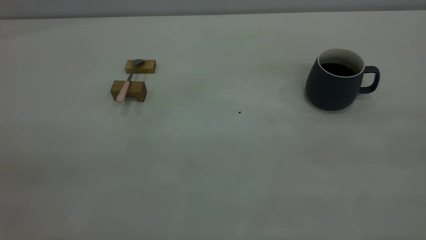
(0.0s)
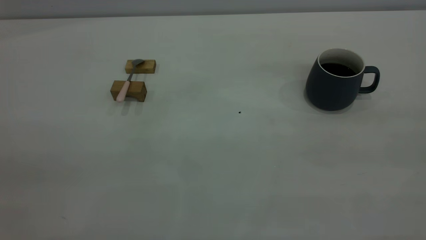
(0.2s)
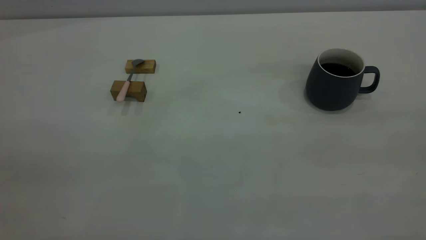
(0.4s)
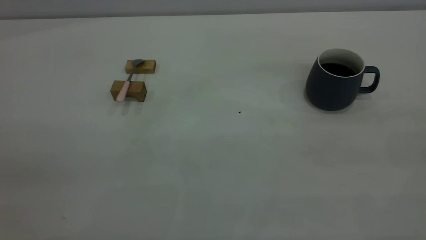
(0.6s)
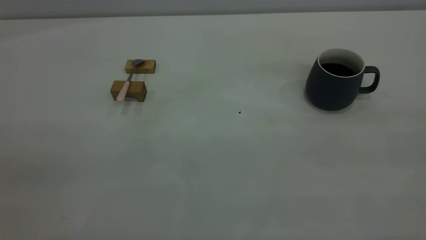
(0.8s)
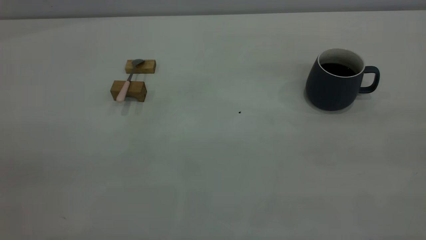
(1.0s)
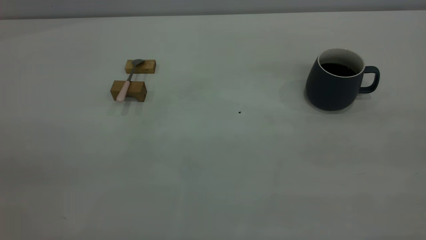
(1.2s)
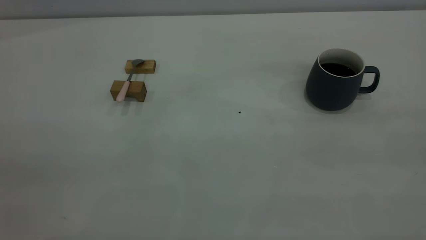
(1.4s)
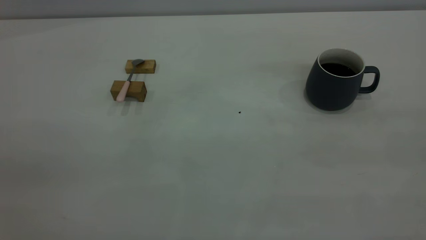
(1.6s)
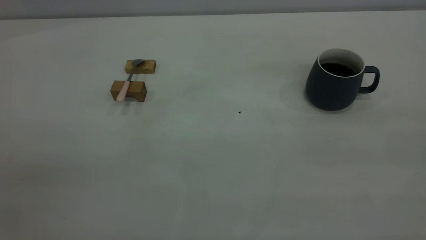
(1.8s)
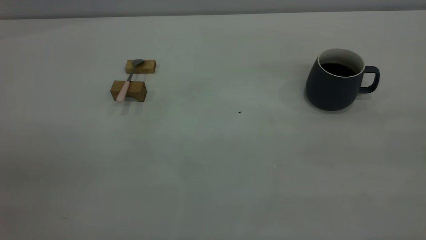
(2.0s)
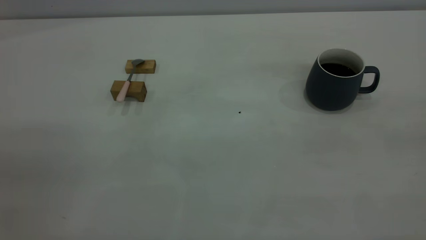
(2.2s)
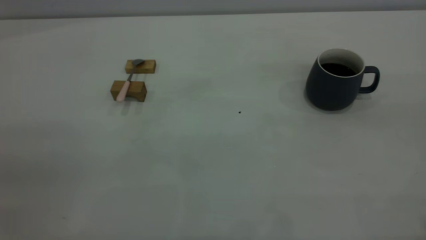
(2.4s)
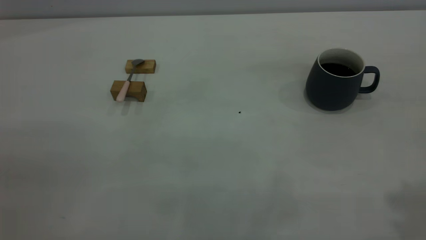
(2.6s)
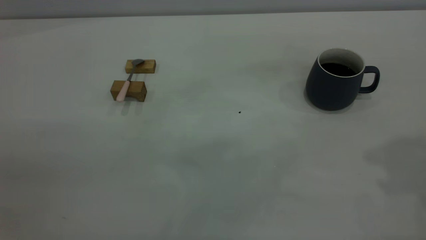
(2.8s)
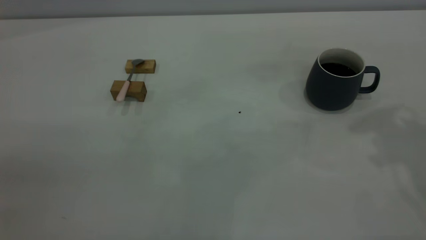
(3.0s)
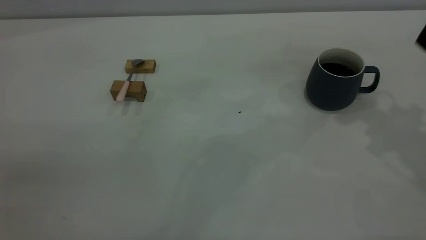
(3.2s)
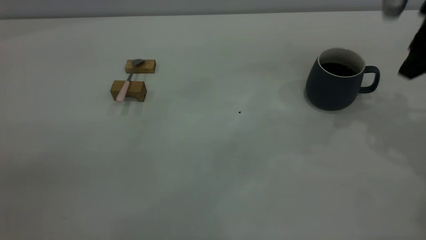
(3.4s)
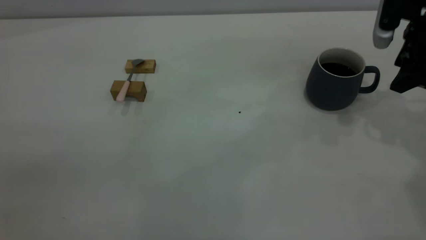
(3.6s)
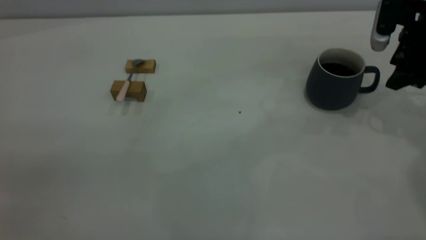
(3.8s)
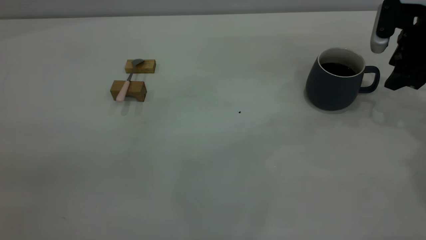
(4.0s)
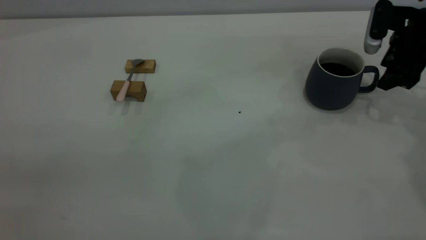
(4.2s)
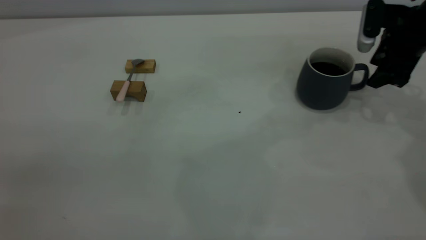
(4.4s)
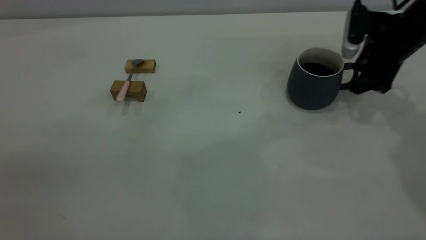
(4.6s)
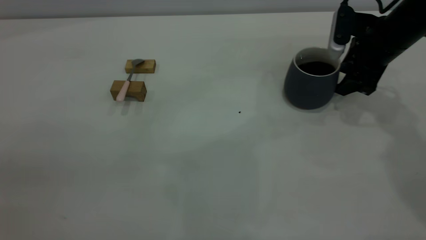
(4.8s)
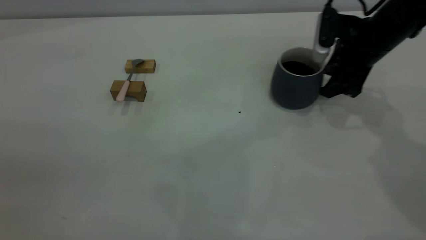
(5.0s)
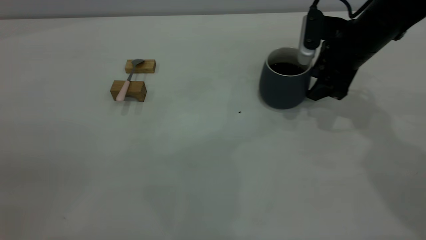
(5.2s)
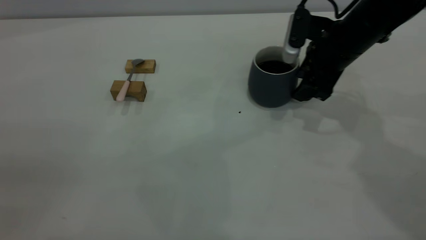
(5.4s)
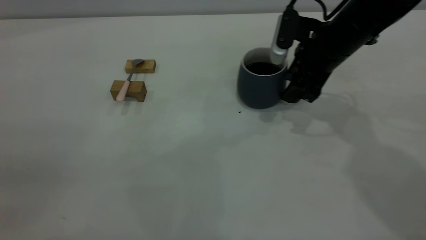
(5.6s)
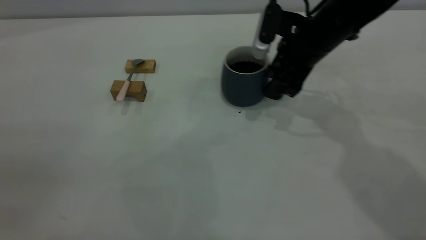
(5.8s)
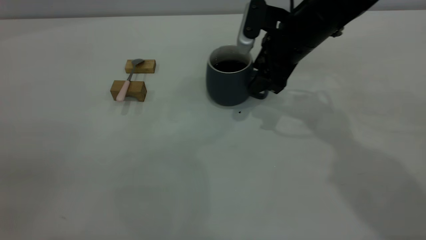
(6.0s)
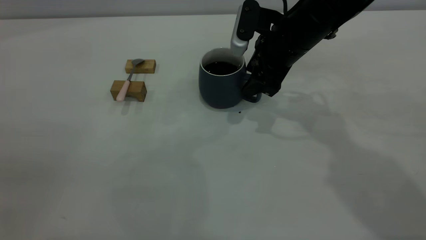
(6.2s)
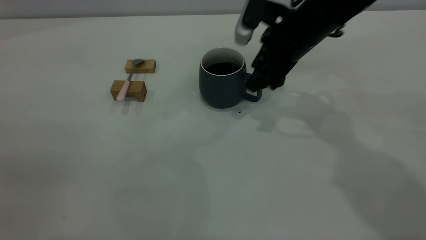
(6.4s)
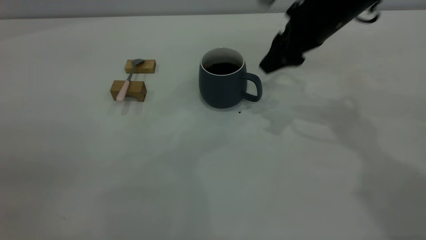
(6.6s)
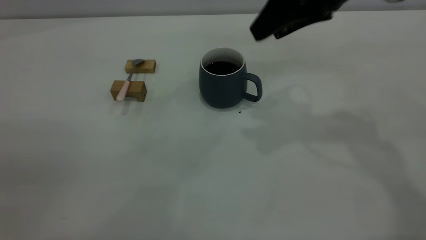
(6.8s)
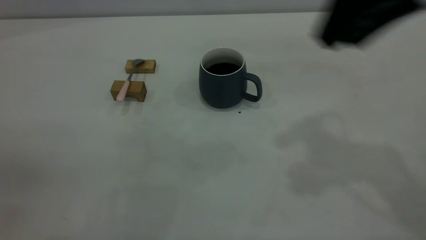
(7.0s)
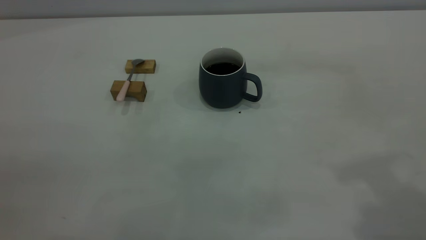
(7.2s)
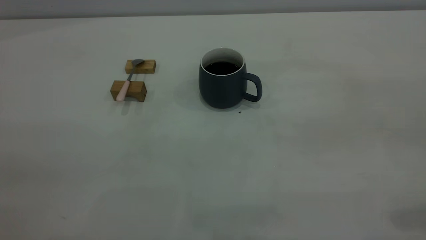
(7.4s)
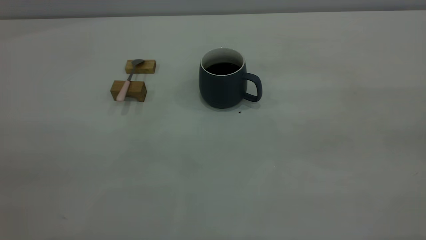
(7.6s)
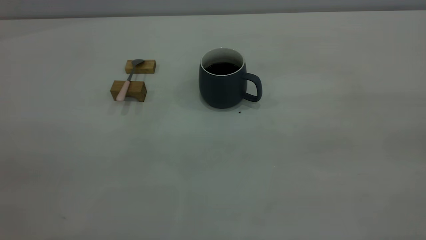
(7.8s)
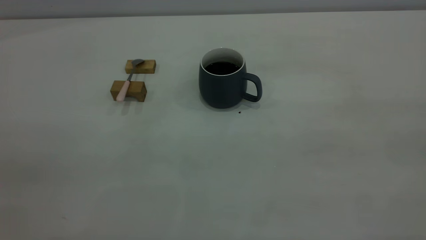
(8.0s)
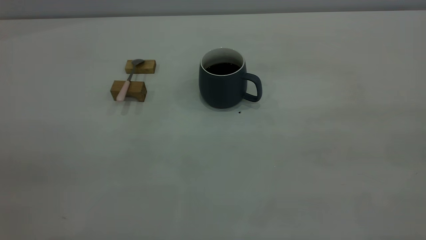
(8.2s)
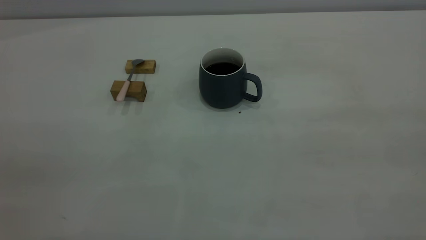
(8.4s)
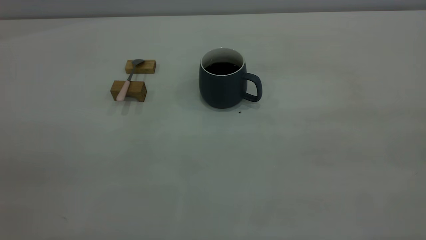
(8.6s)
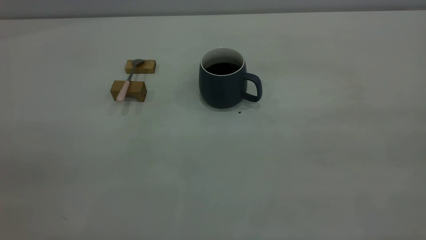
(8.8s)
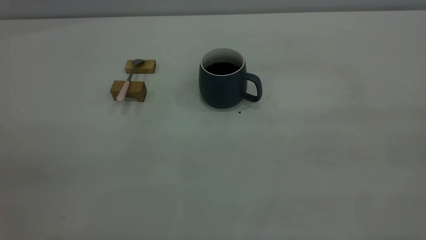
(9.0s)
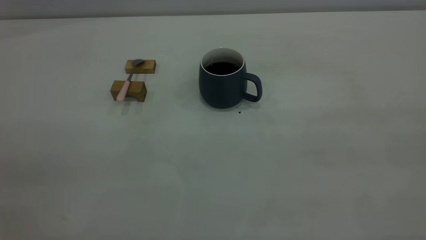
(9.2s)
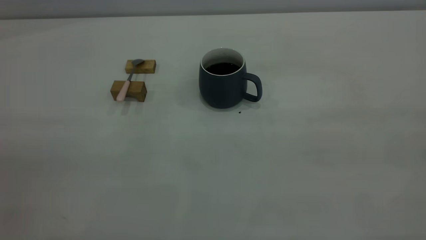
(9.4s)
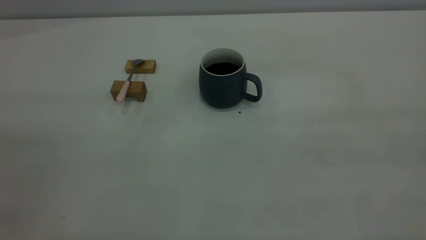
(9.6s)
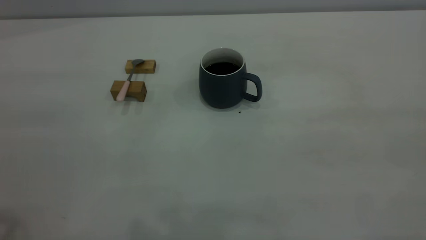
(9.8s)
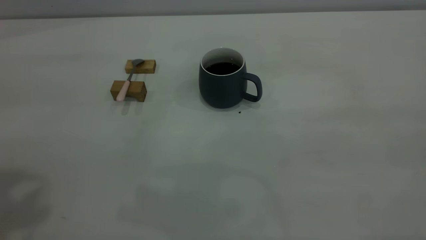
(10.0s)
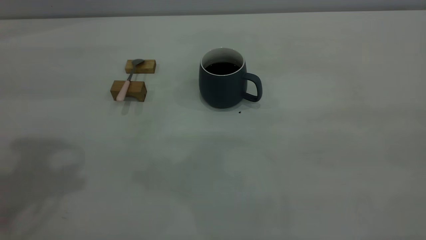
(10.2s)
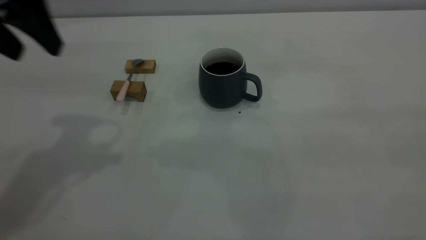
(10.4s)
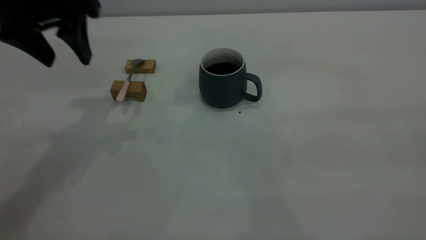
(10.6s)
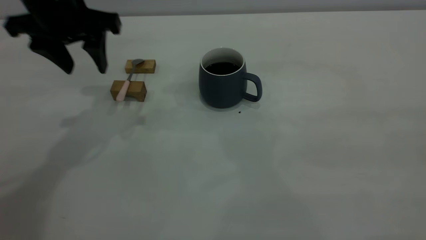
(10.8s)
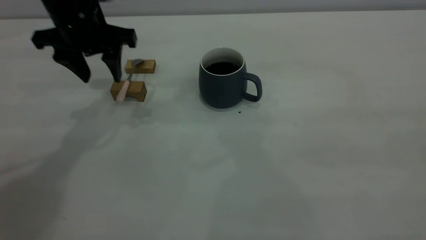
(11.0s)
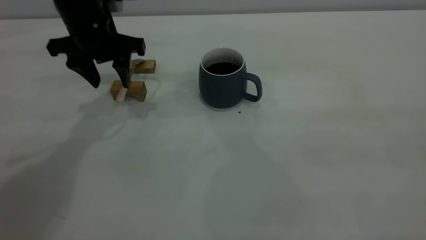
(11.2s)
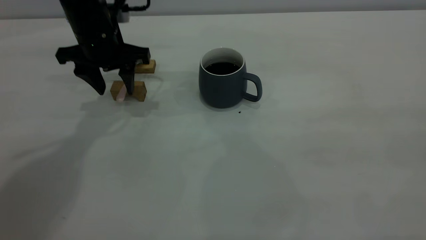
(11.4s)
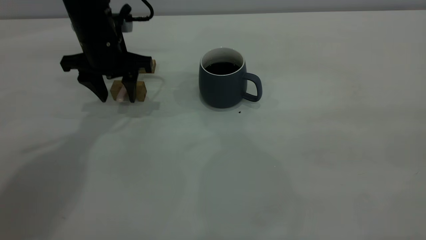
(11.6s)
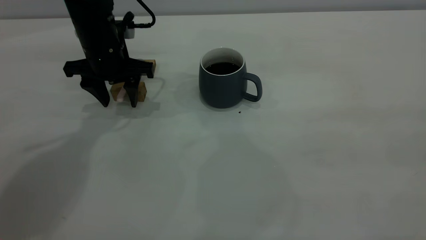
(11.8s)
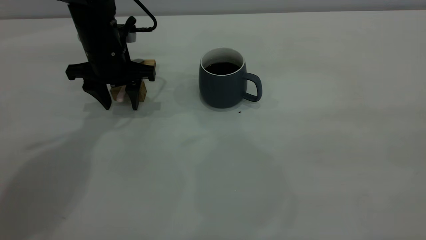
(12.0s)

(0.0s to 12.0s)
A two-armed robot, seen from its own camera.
Step, 0.0s - 6.6s: Move the cup with coffee to the center of view.
0.0s - 1.6s: Both grippers stay put.
3.0s - 4.4s: The right gripper goes approximately 20 cm downward and forward.
4.4s - 6.0s: The right gripper travels to the left by roughly 20 cm.
6.0s - 7.6s: The right gripper heads backward, upward and to the right, covering some 50 cm.
9.0s - 10.4s: The left gripper shifts approximately 30 cm forward, and opens up.
10.4s - 12.0s: The left gripper travels downward and forward by some 25 cm.

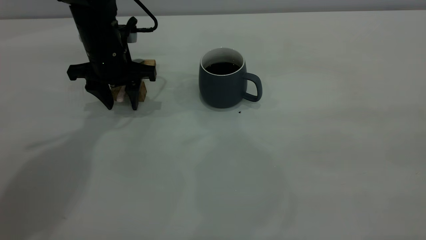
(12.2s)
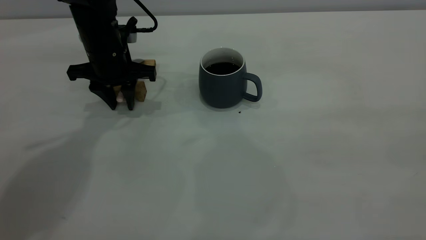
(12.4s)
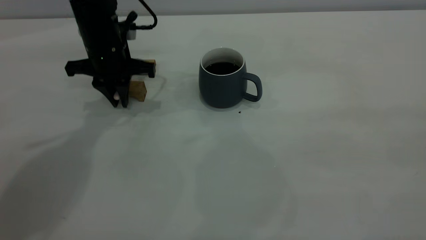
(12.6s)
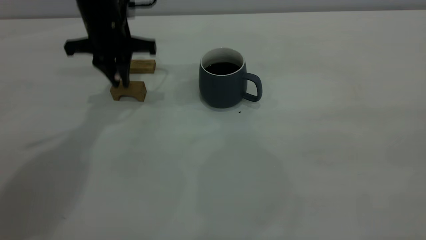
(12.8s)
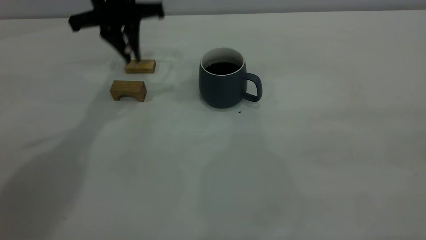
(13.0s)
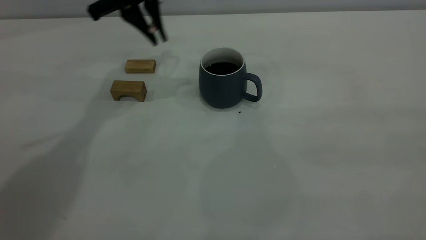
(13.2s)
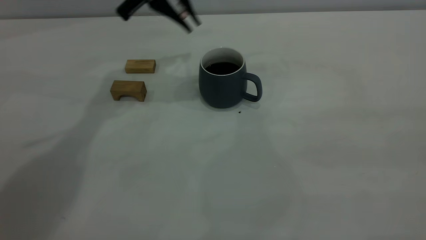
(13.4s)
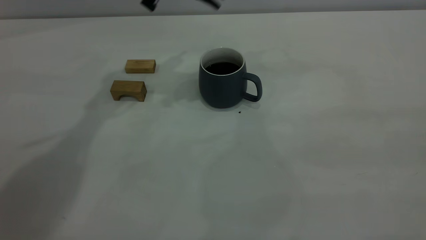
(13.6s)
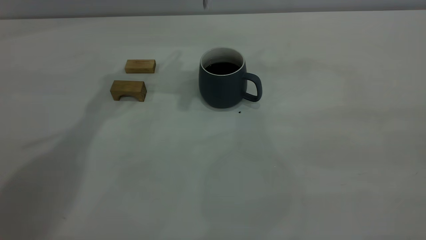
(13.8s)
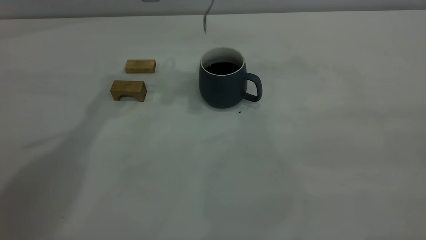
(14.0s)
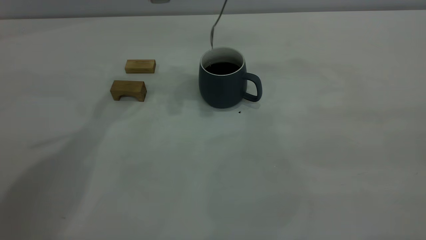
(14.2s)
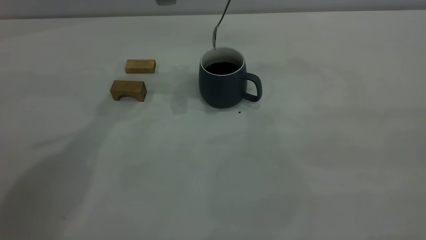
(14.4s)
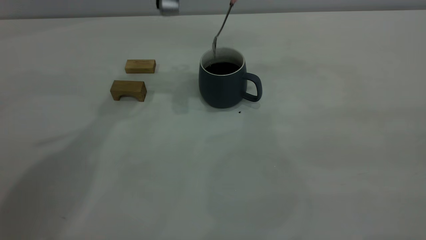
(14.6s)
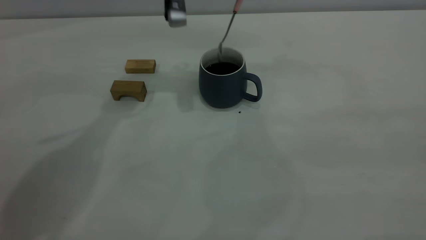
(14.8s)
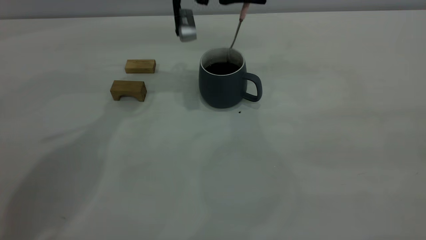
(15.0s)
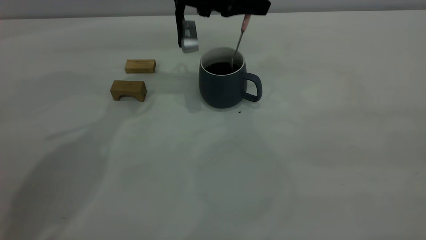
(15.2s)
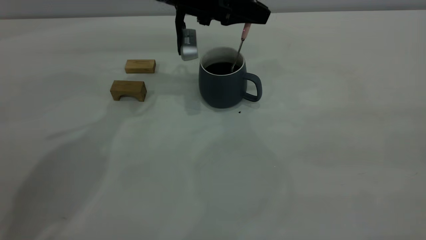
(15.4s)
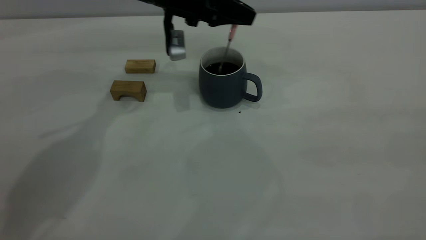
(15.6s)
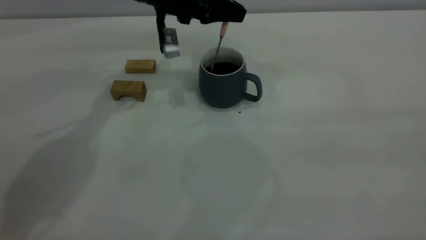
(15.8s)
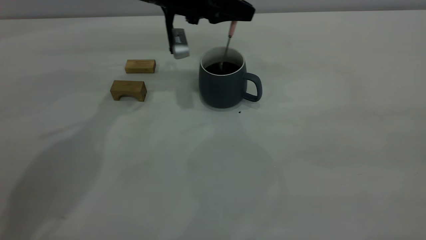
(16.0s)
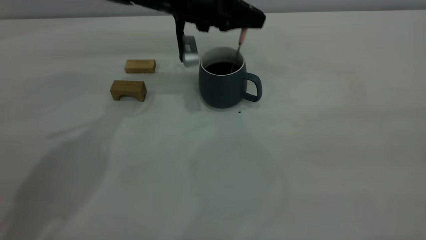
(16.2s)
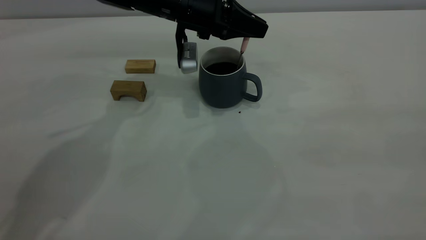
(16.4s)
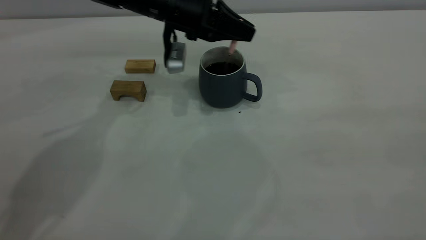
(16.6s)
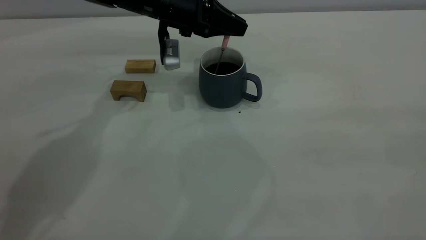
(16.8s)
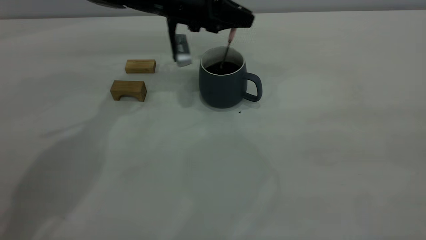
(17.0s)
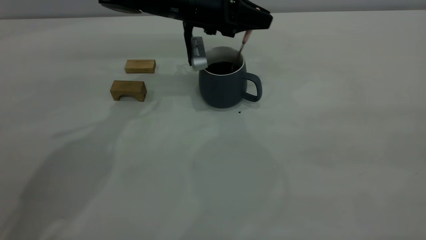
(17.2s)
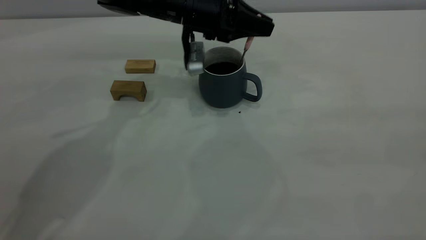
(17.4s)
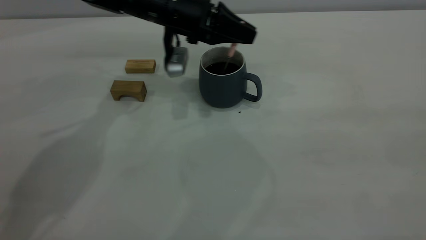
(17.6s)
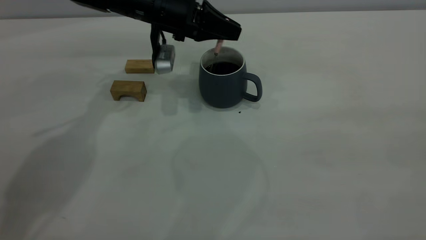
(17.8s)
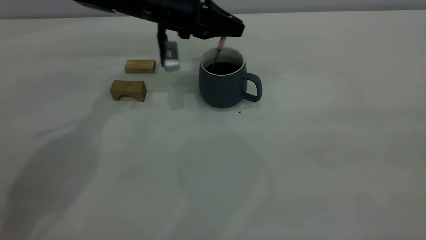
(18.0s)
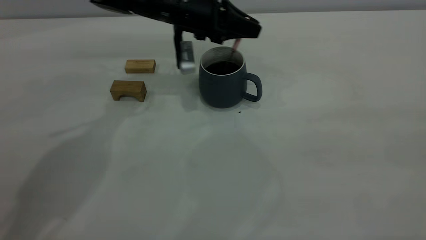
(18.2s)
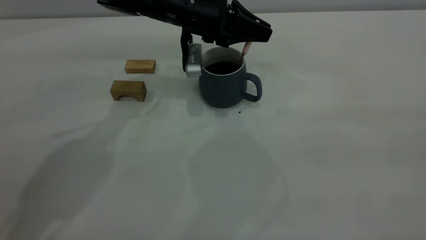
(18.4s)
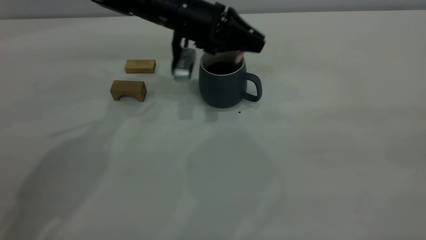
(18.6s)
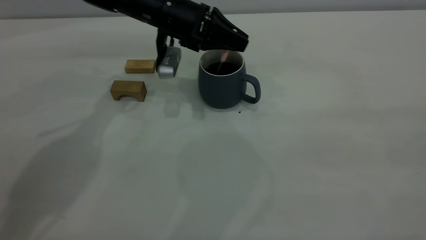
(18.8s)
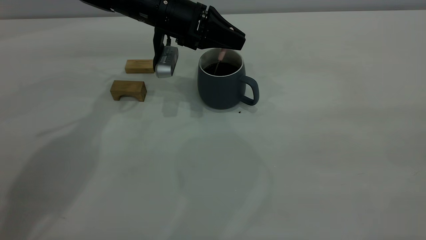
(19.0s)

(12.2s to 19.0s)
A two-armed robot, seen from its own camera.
12.2s - 13.6s: The left gripper moves upward and to the right, some 15 cm, and closes its fingers.
13.6s - 15.0s: The left gripper travels downward by some 5 cm.
15.0s - 17.6s: The grippers stay close to where they were, moving slightly.
17.6s - 19.0s: The grippers make only small movements.
